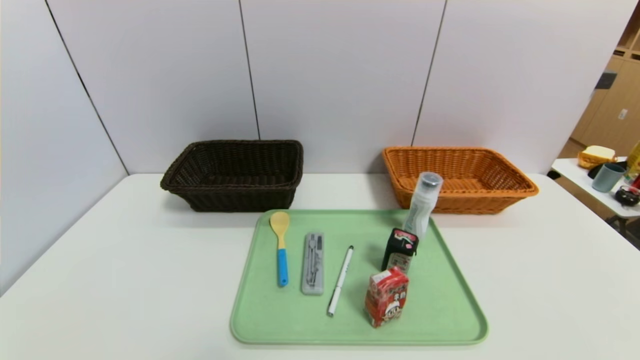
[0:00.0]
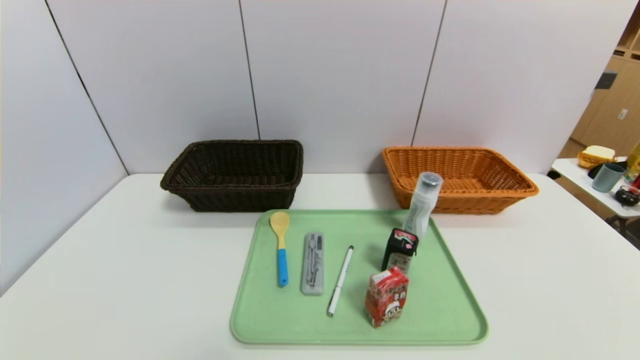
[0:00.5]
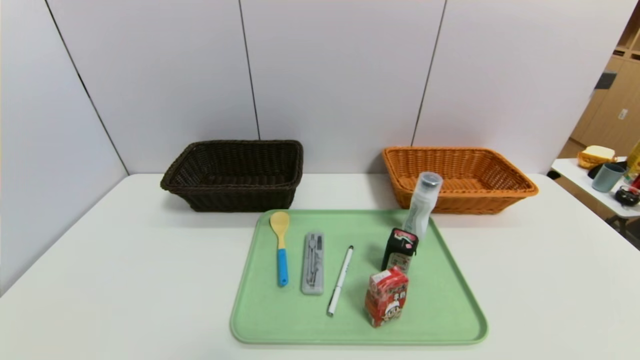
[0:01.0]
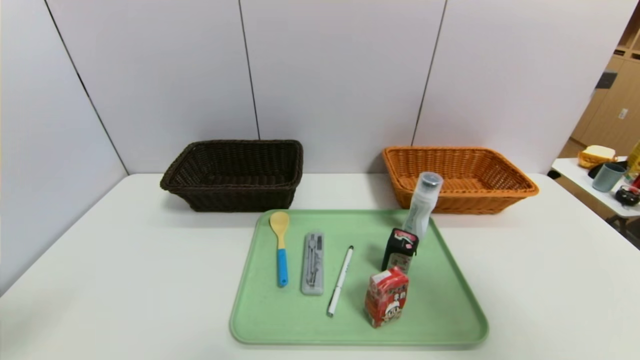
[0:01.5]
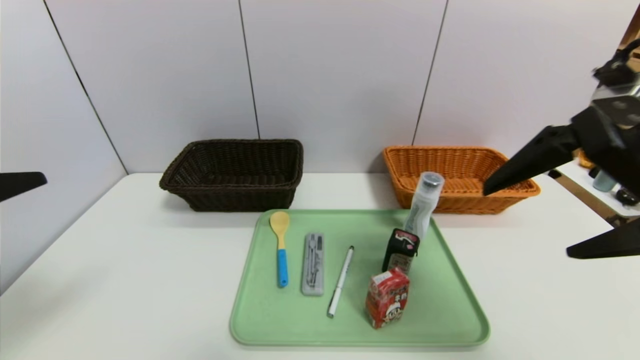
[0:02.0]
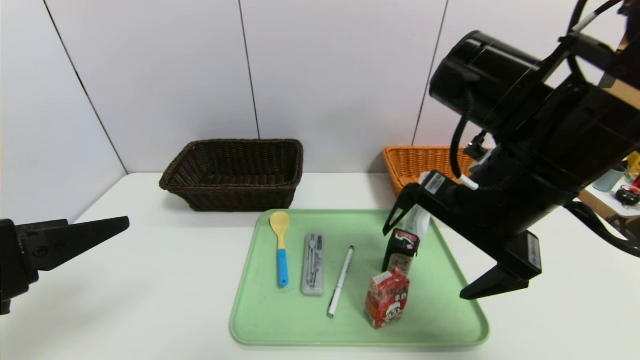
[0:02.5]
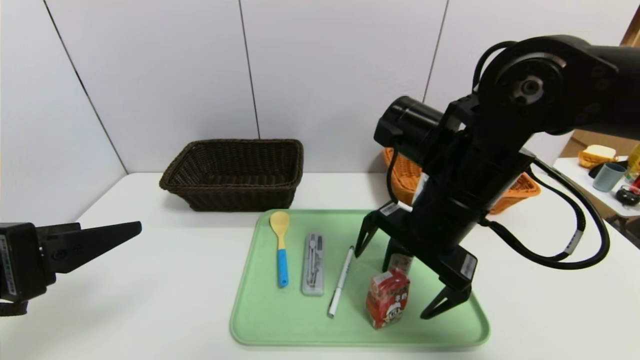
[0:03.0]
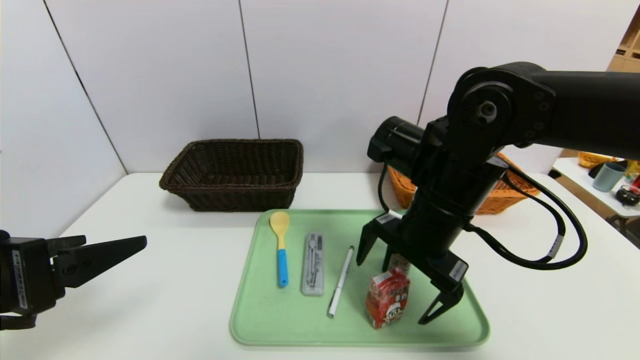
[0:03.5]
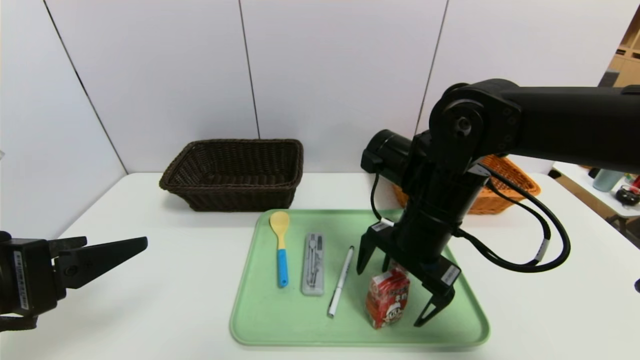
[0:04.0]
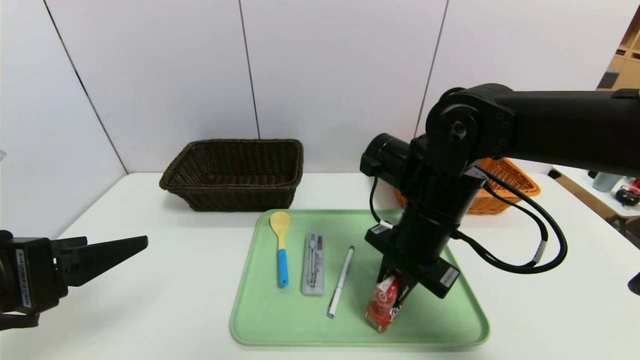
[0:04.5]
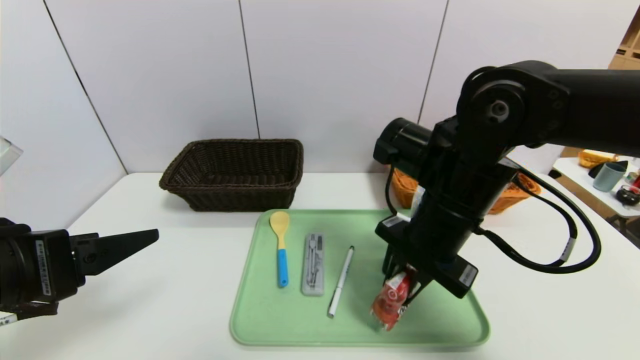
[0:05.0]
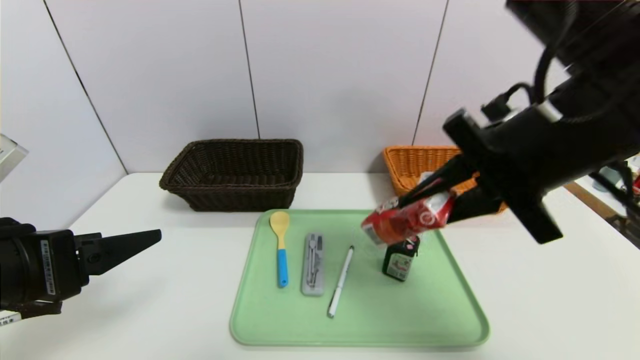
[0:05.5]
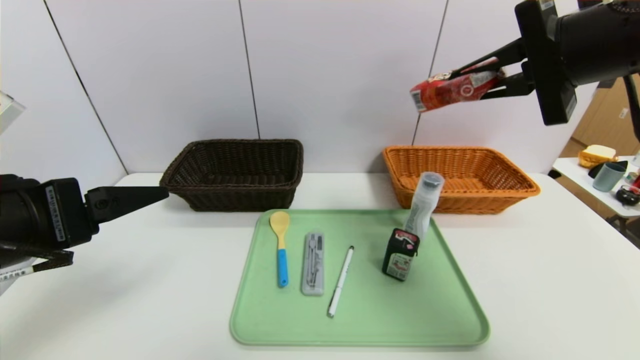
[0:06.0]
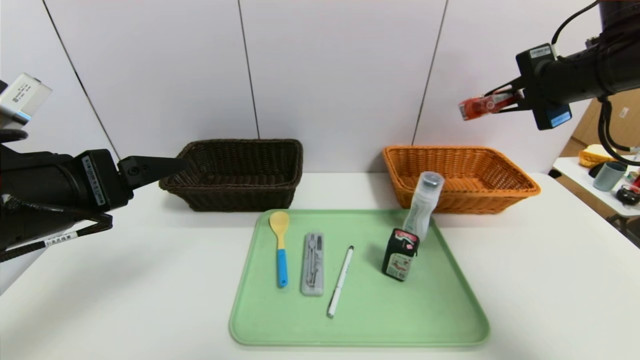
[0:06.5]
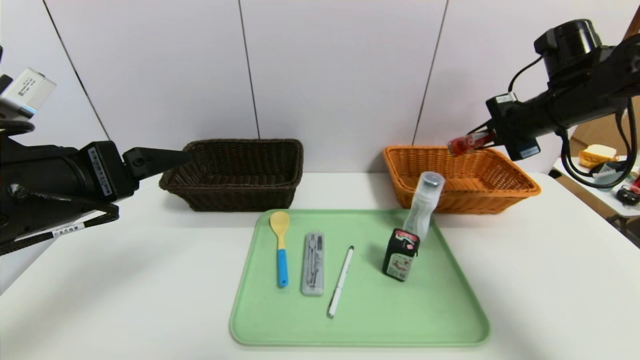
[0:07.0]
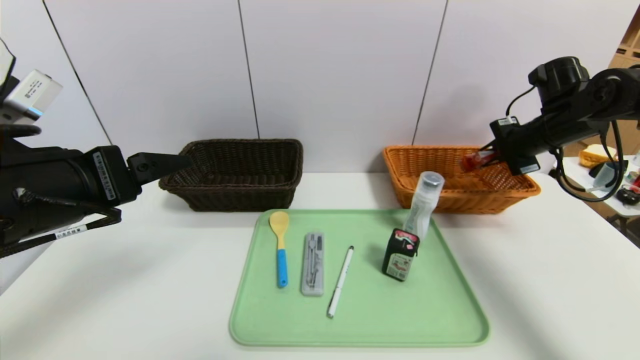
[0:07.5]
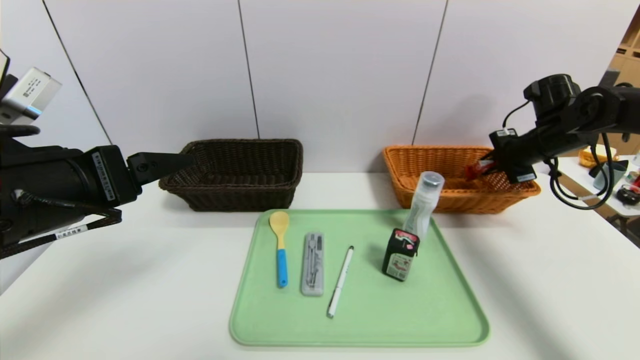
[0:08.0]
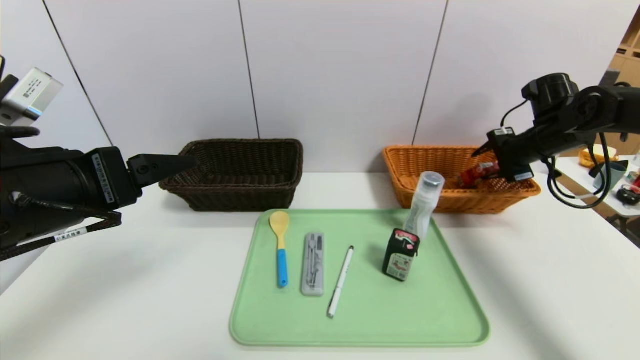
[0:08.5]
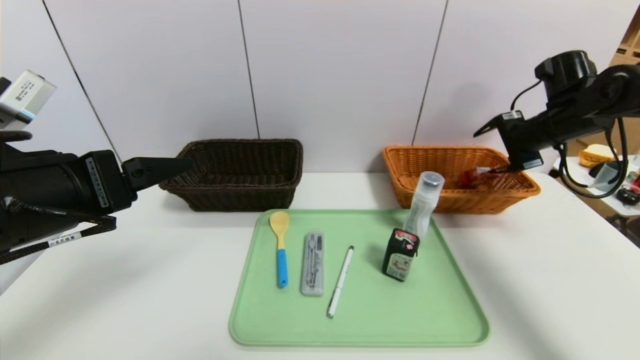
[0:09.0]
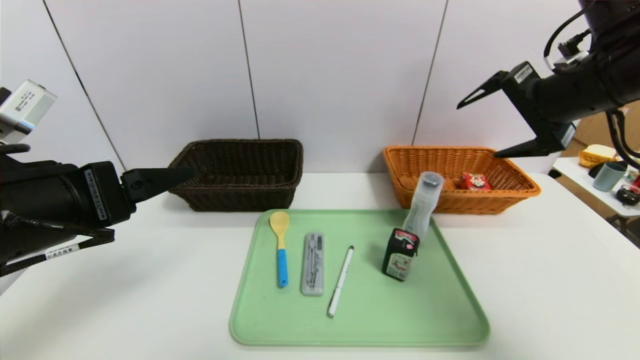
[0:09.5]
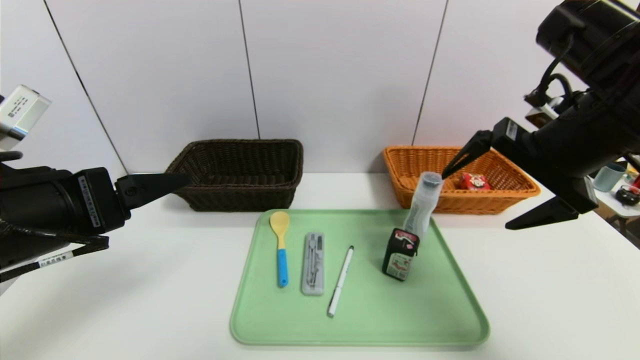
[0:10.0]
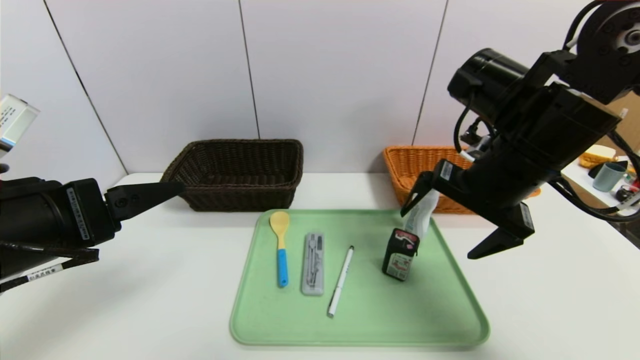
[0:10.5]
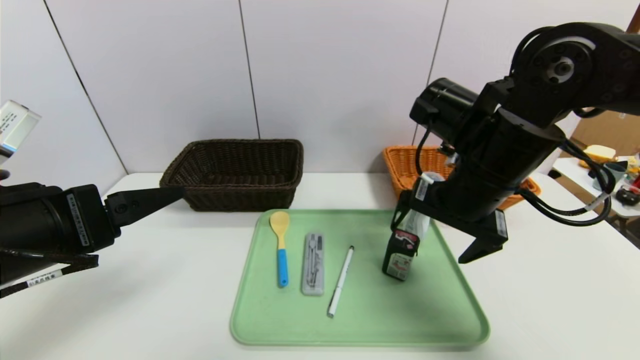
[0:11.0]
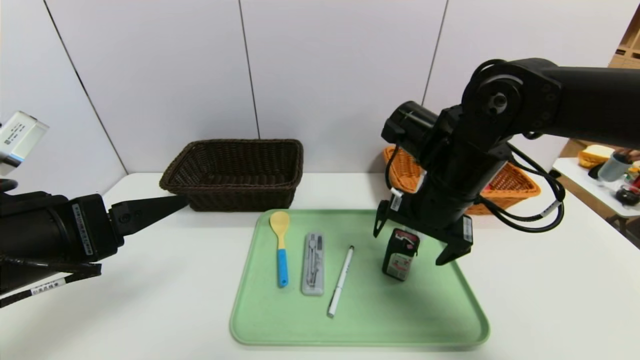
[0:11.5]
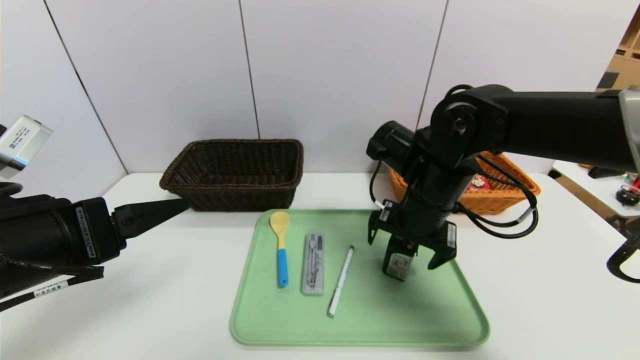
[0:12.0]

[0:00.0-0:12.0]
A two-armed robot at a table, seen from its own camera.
Task of the whole recording: place the food in the right basket with the right gripper, and place the non food items in the left basket with the left gripper.
Step, 0:00.0 to 0:09.0: Grasp the milk and put it in the right basket.
0:00.0 to 0:02.0: The right gripper shifts some 35 cm upward, forward and to the left, while the left gripper heads upward and forward, covering approximately 25 cm.
0:02.0 to 0:04.0: The right gripper is displaced downward, forward and to the left by roughly 20 cm; the left gripper ends up some 5 cm from where it was.
0:04.0 to 0:06.0: The right gripper heads upward and to the right, covering some 20 cm, and closes its fingers.
0:06.0 to 0:08.0: The right gripper shifts some 30 cm forward, downward and to the right.
0:08.0 to 0:10.0: The right gripper shifts roughly 25 cm backward, to the left and upward, and opens.
0:10.0 to 0:12.0: The right gripper moves downward, to the left and forward, about 15 cm.

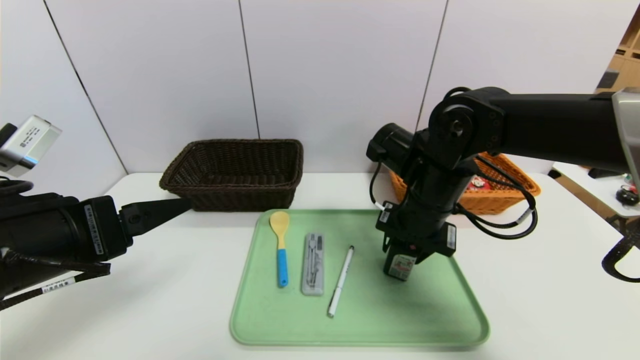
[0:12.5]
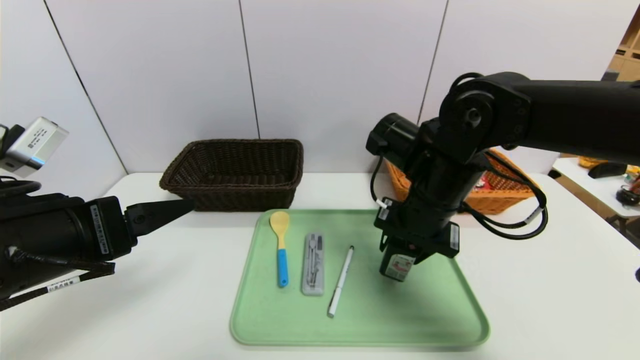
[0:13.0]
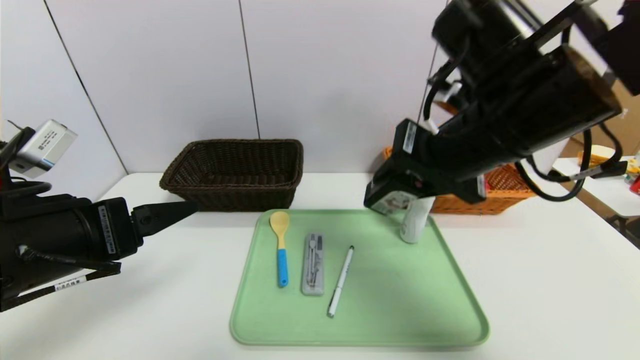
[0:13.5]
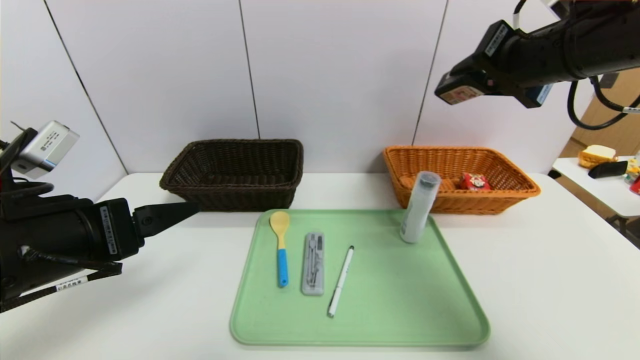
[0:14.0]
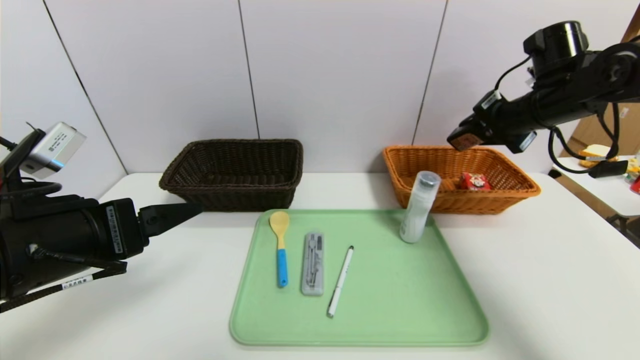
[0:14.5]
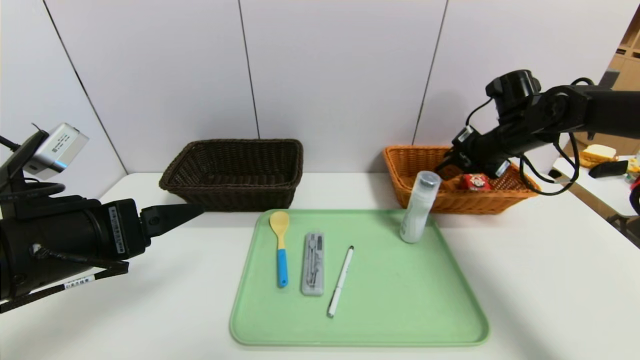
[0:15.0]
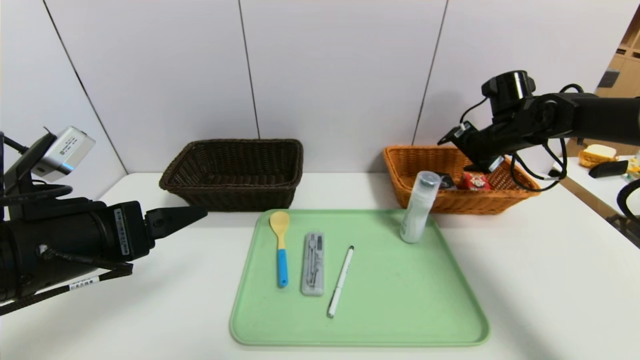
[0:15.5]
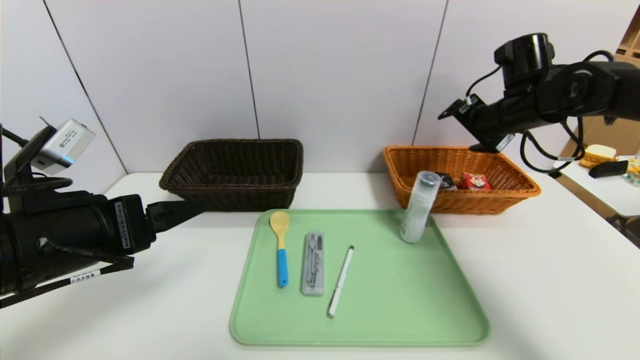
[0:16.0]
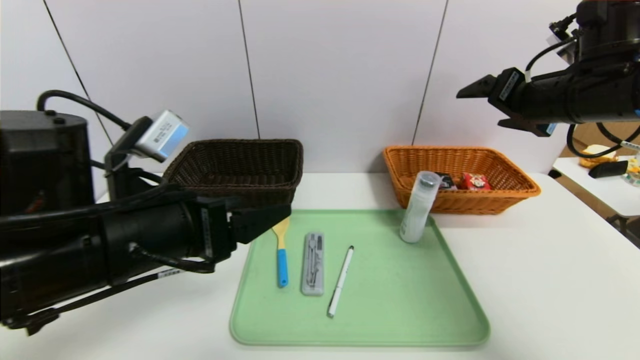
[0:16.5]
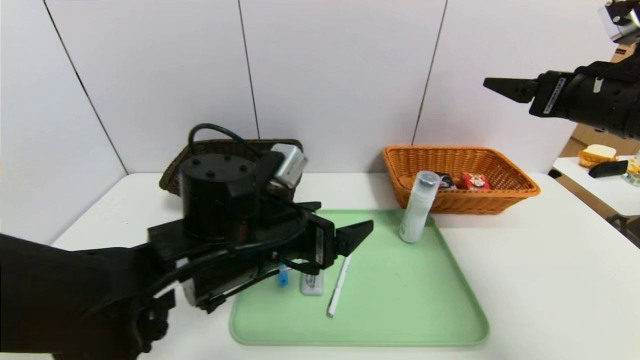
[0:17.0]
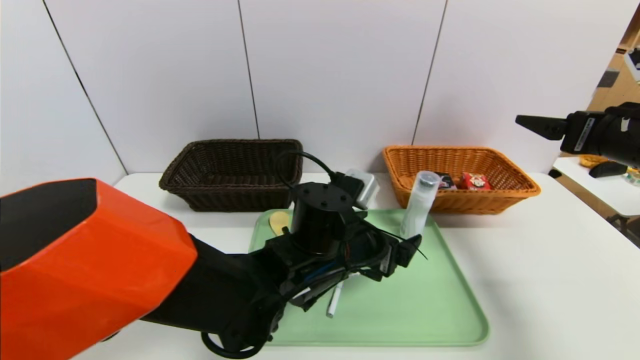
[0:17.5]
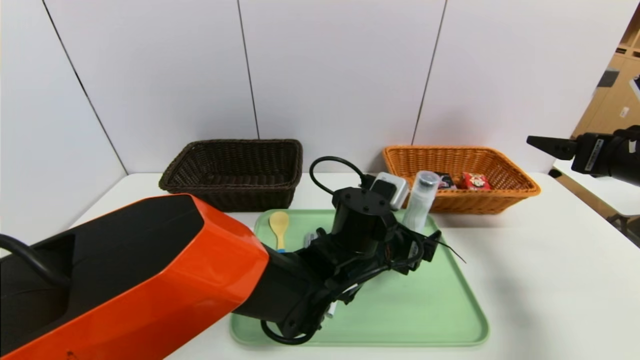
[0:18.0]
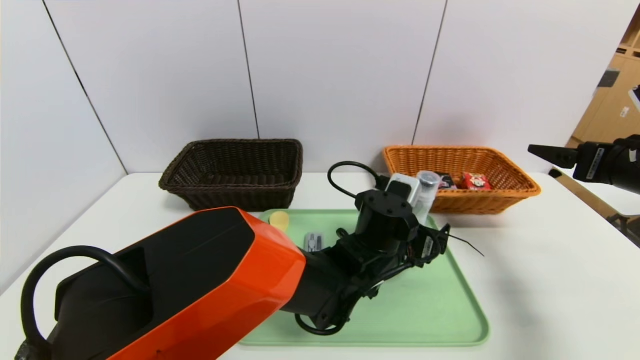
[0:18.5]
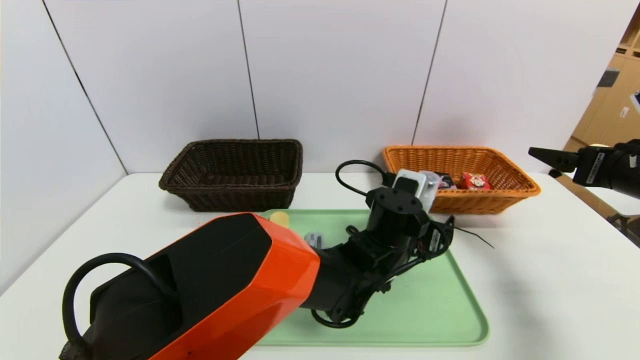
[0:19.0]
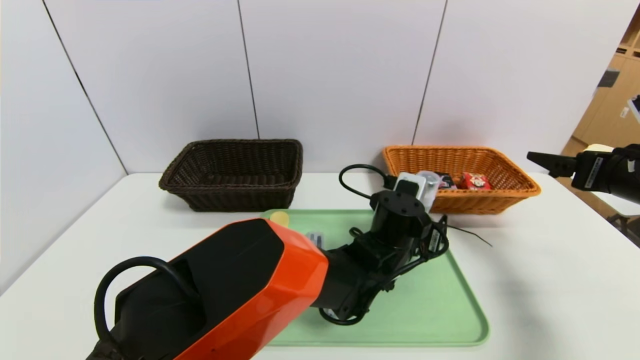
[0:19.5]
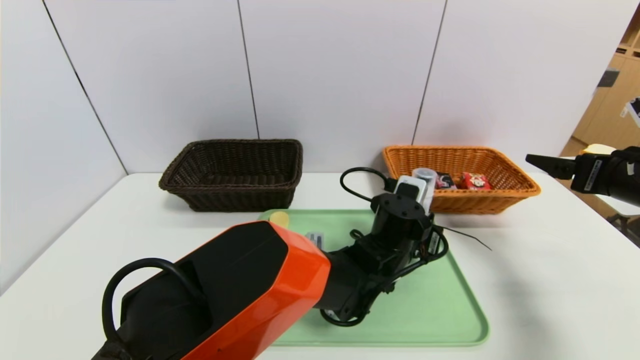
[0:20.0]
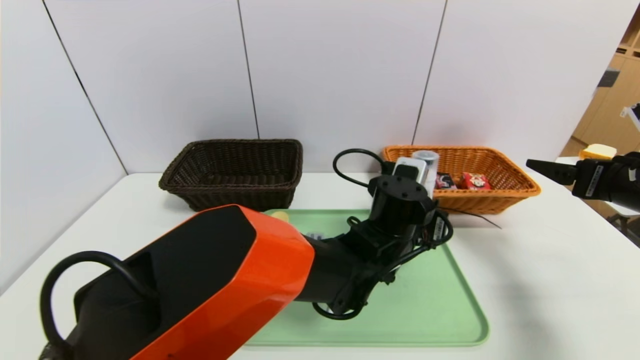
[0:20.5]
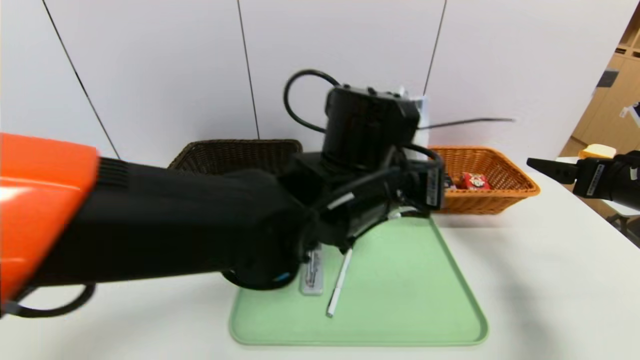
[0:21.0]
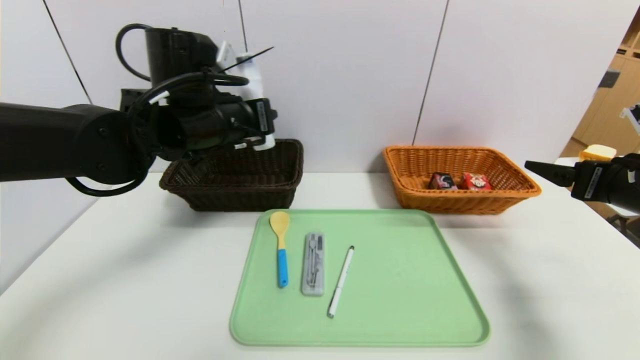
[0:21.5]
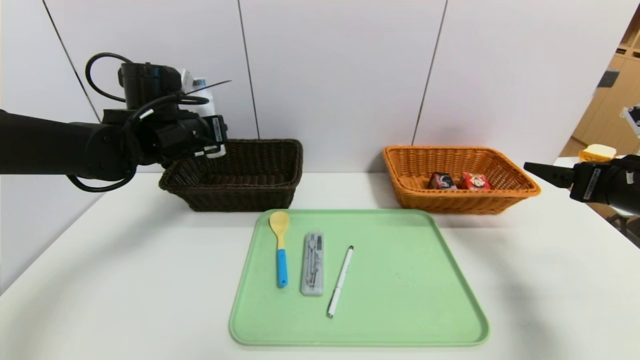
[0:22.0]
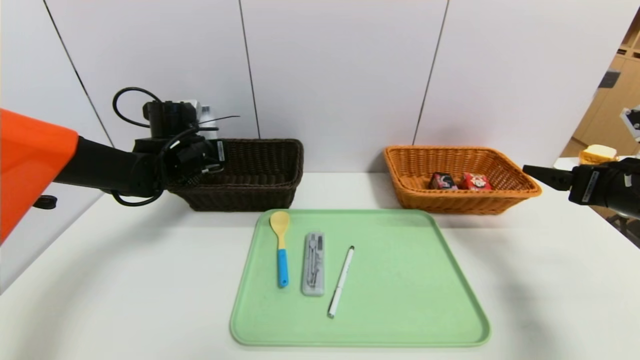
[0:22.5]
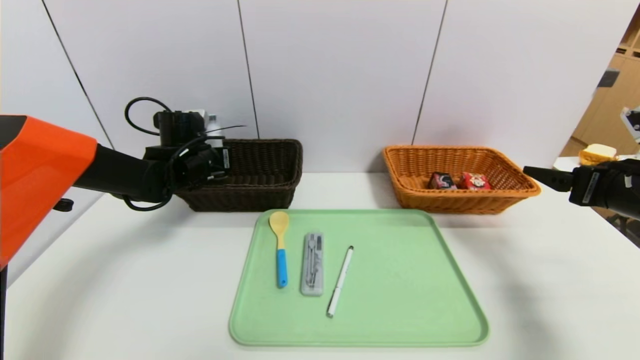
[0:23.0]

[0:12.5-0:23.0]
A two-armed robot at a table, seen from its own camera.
Task of the whole recording: place the food in the right basket with the right gripper, and place the non food items in the left basket with the left gripper.
Step, 0:12.5 to 0:16.0: Grasp the square chewing gum and put it in the right basket.
0:12.5 to 0:14.5: The right gripper moves to the right, forward and upward, approximately 20 cm.
0:14.5 to 0:16.5: The left gripper goes some 5 cm to the right, while the right gripper is displaced backward by approximately 10 cm, and opens its fingers.
0:16.5 to 0:19.0: The left gripper shifts about 30 cm to the right, downward and forward. Meanwhile the right gripper goes some 15 cm to the right, downward and backward.
0:19.0 to 0:21.0: The left gripper travels upward and to the left by about 15 cm, and closes up.
0:21.0 to 0:23.0: The left gripper heads to the left and forward, covering about 30 cm.
